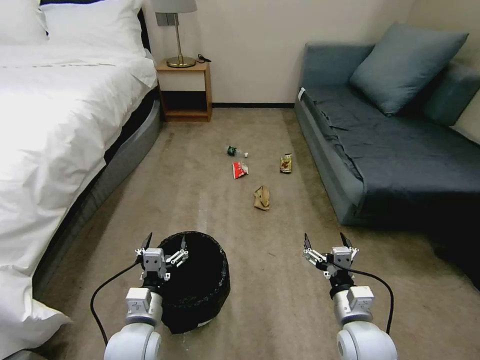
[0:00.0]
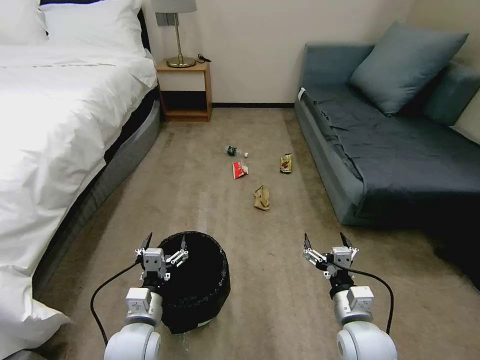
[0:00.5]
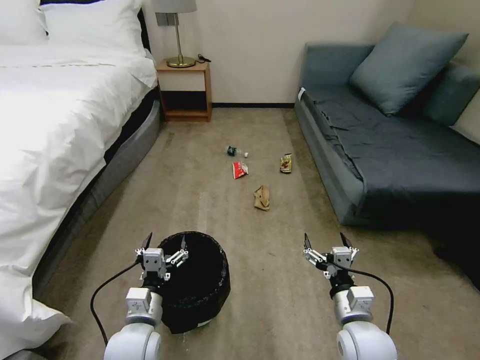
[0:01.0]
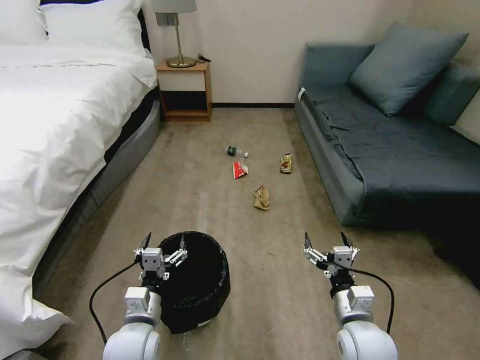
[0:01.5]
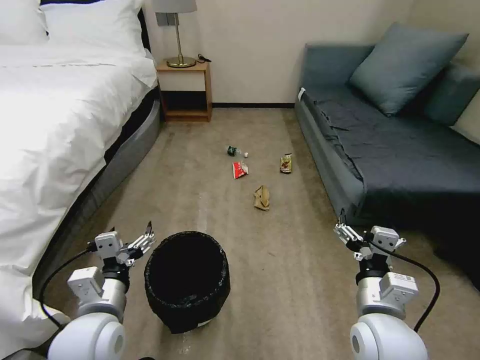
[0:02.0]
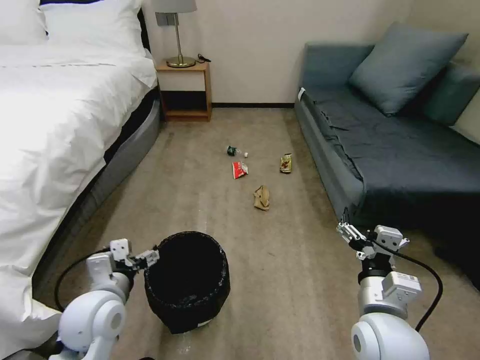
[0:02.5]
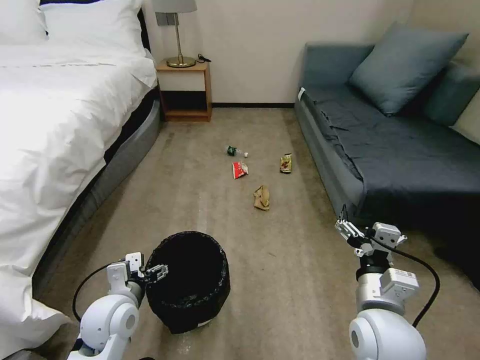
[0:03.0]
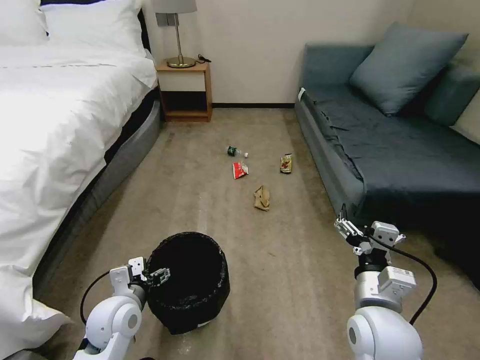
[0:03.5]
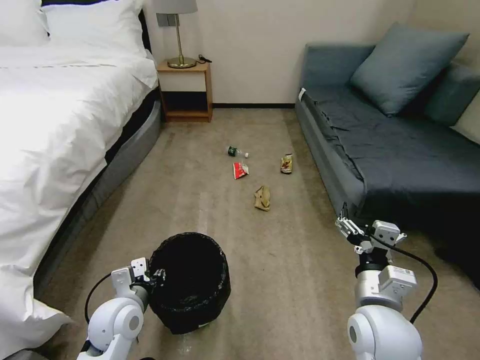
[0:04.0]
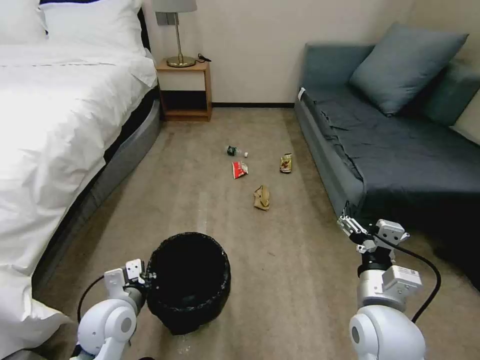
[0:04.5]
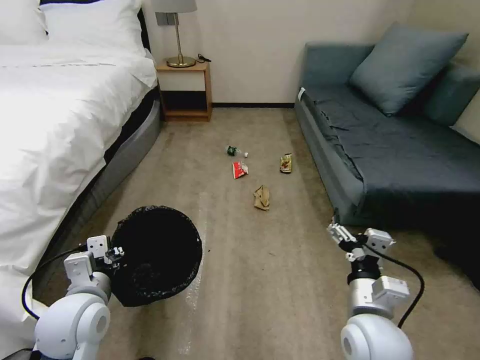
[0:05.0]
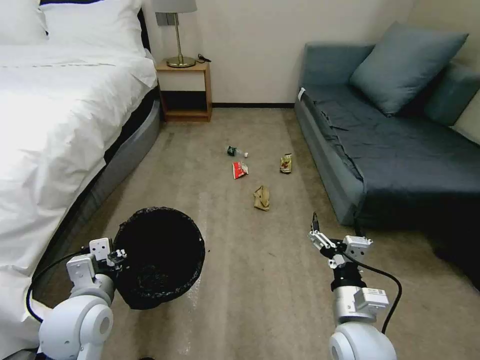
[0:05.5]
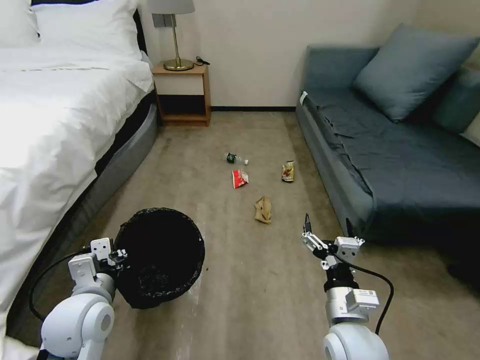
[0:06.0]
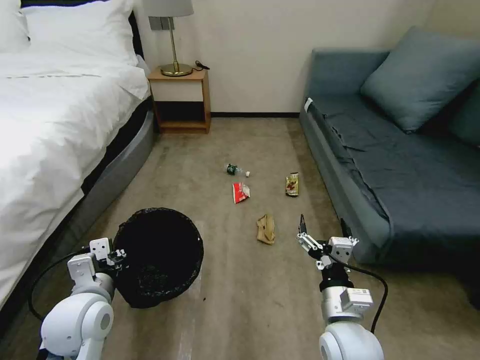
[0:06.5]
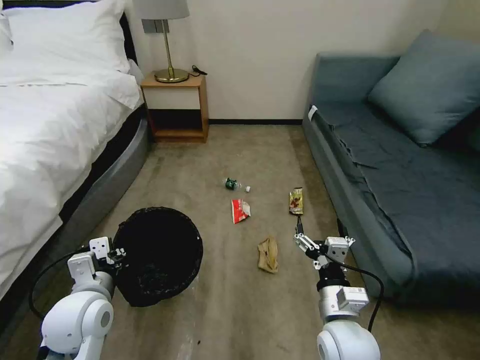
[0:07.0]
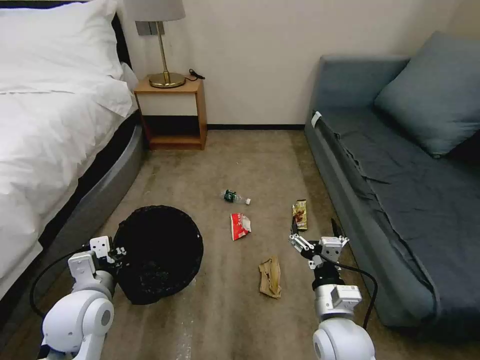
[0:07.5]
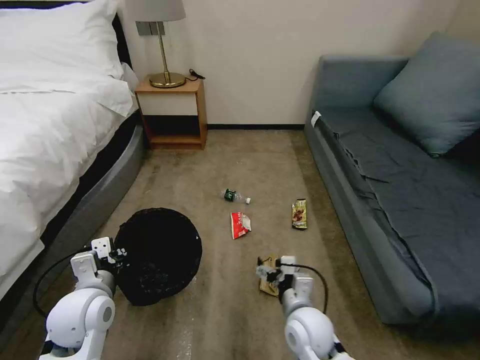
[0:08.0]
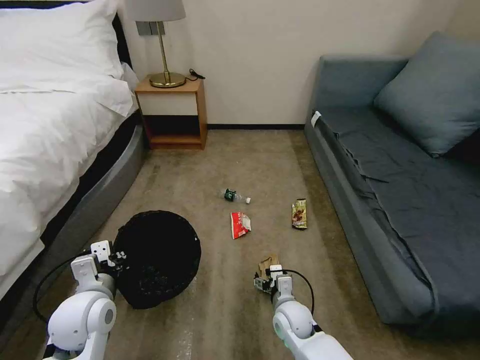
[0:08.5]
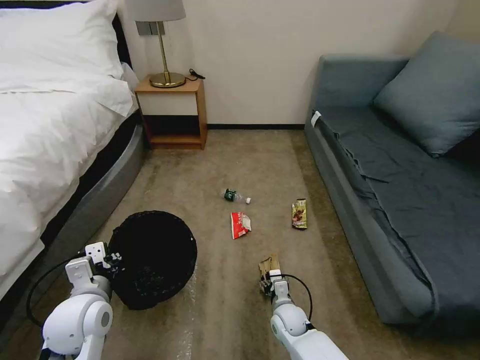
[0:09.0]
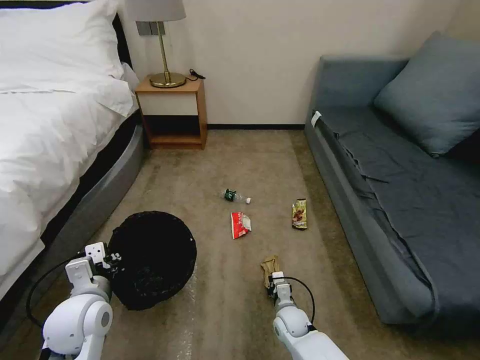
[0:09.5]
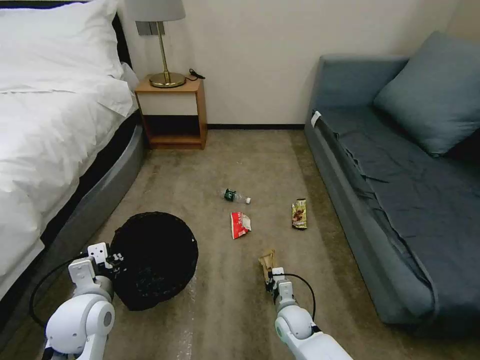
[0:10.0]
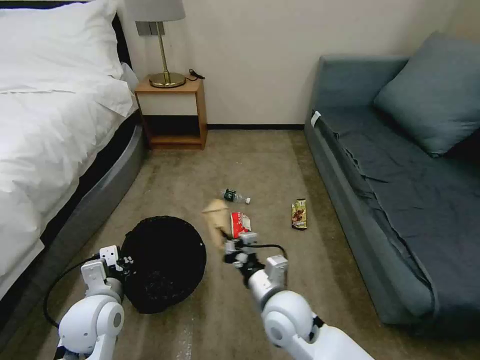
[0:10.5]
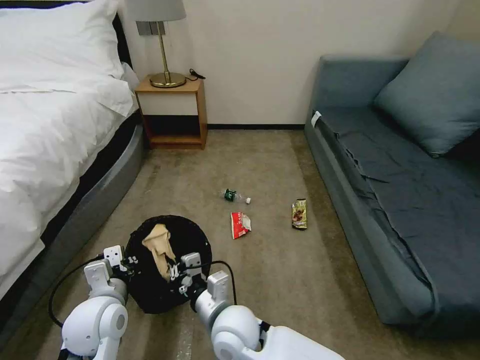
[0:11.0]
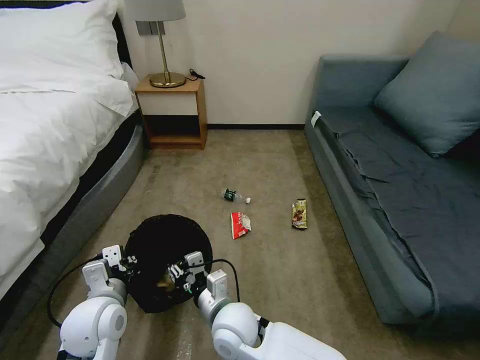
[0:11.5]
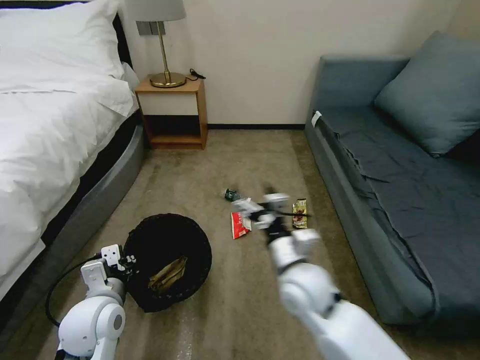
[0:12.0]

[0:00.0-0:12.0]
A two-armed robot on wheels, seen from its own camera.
Task of the whole recording: Pick up the trash bin, then pick up the garbage on the floor and place it into the trash bin.
0:02.0 to 0:04.0: The left gripper travels downward and forward by about 10 cm, and closes its fingers.
0:04.0 to 0:06.0: The right gripper shifts roughly 5 cm downward, while the left gripper goes roughly 10 cm upward.
0:06.0 to 0:08.0: The right gripper is displaced downward and to the left by about 10 cm.
0:08.0 to 0:10.0: The right gripper travels downward by about 15 cm, and closes its fingers.
0:10.0 to 0:12.0: The right gripper moves upward, some 25 cm, and opens up.

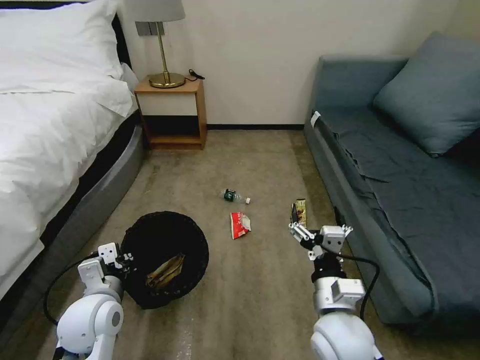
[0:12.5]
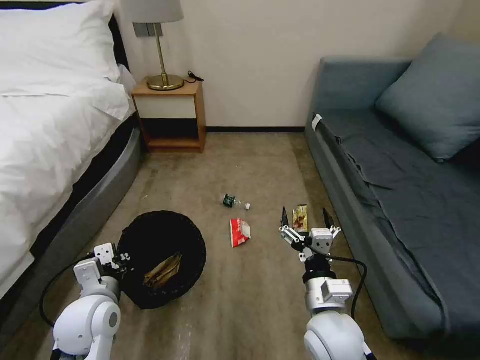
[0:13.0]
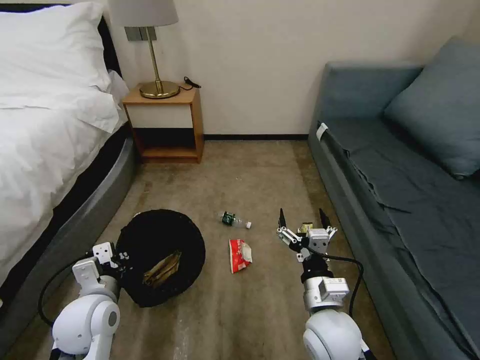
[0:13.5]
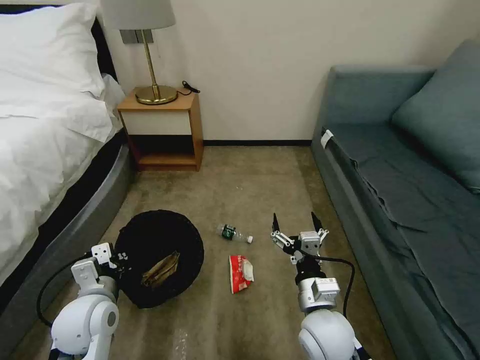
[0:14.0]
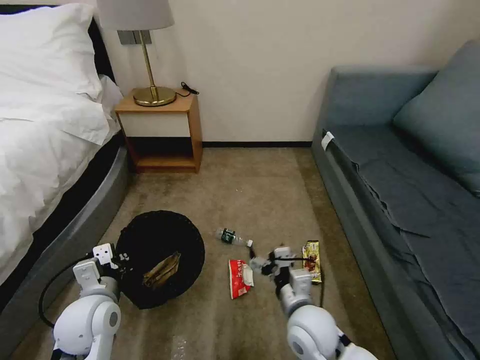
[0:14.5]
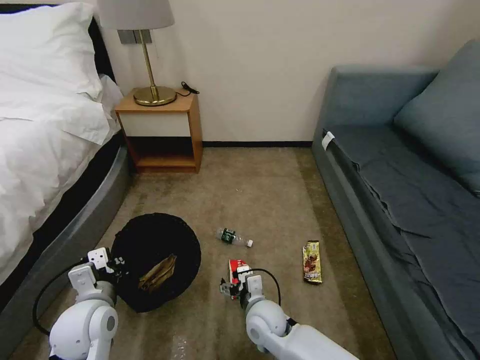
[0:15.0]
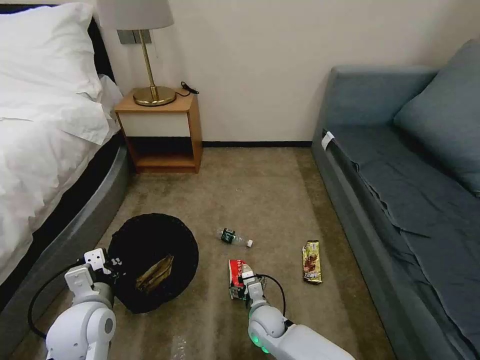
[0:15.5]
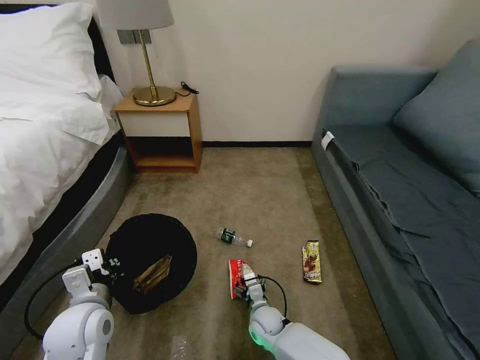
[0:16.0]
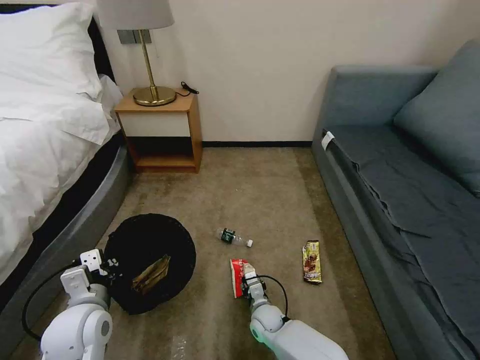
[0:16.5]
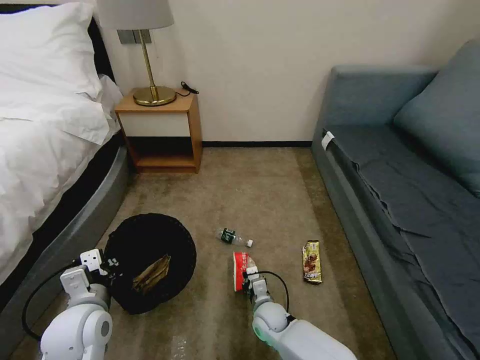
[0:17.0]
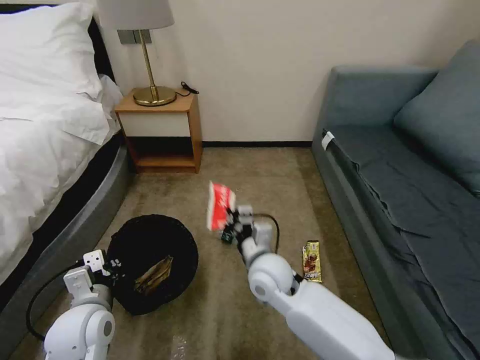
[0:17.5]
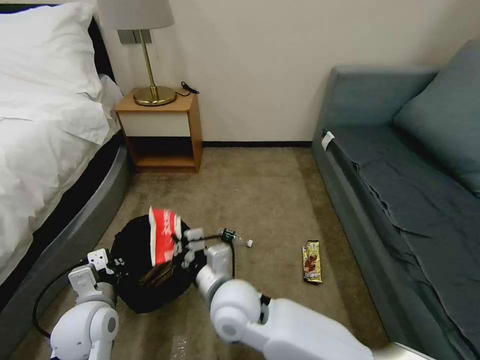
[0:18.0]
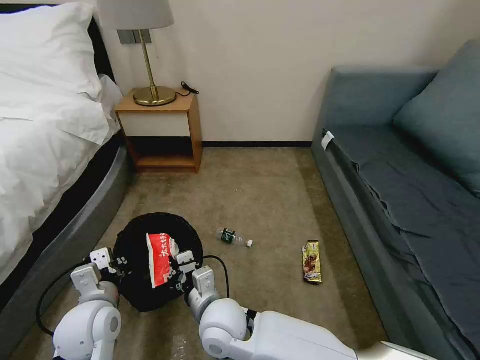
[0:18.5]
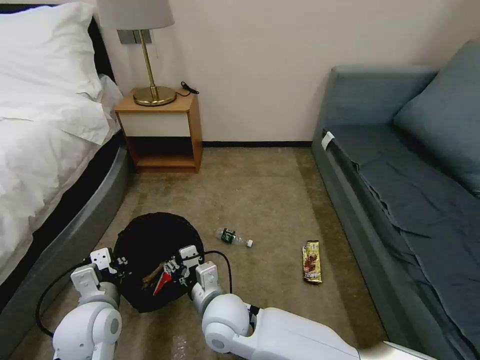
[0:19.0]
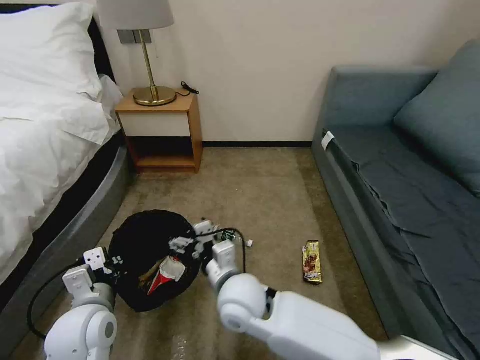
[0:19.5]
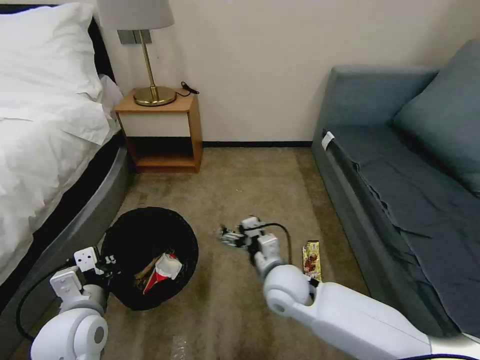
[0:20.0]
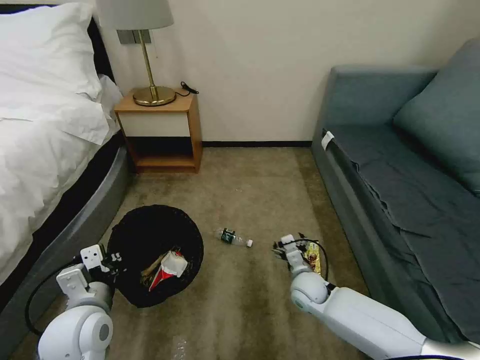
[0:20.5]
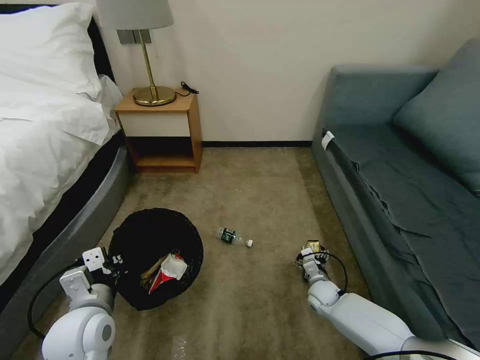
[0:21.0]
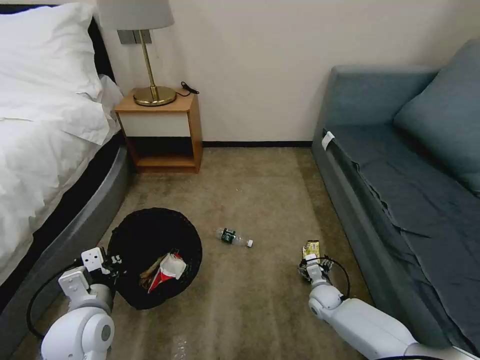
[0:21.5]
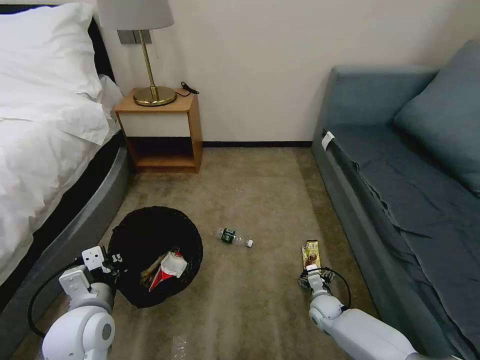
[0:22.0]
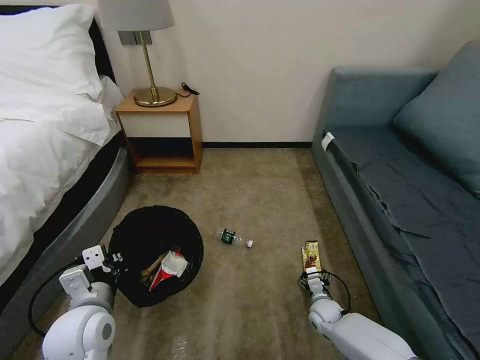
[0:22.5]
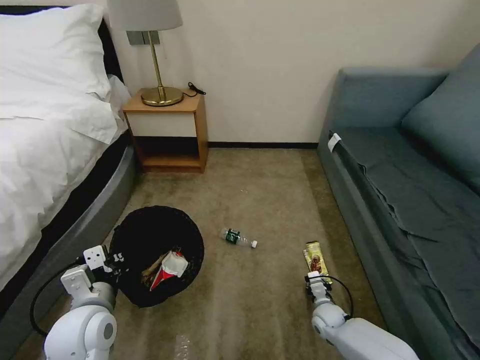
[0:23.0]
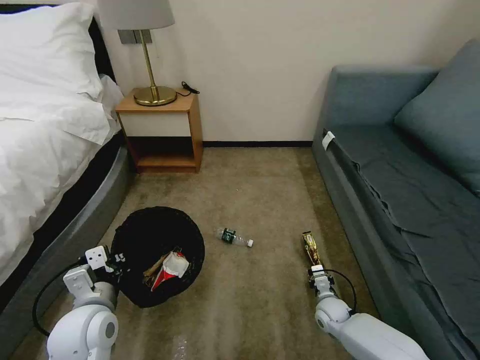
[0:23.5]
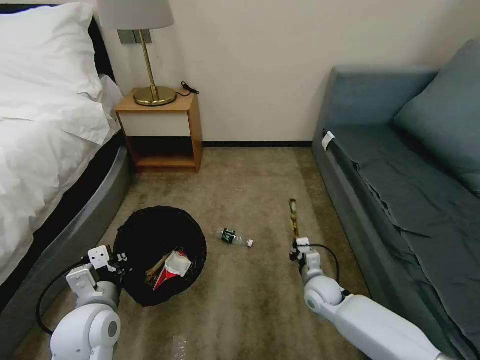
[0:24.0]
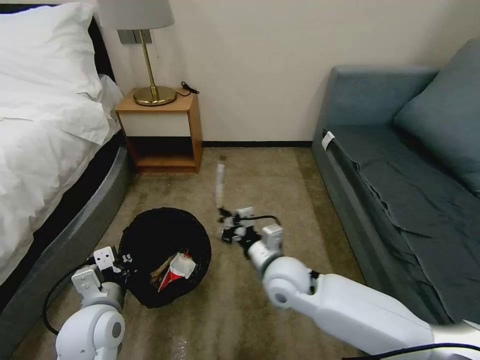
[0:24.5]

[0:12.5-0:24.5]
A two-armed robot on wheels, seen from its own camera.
Task of the whole recording: Pick up the trash bin, then pick up the garbage on the floor and place it into the trash bin.
0:12.5 to 0:14.5: The right gripper travels downward by roughly 5 cm.
0:14.5 to 0:16.5: The right gripper shifts some 20 cm downward, and closes up.
0:16.5 to 0:18.5: The right gripper goes some 25 cm upward and to the left, and closes up.
0:18.5 to 0:20.5: The right gripper goes roughly 30 cm to the right, downward and forward, and opens its fingers.
0:20.5 to 0:22.5: The right gripper shifts some 15 cm downward and to the right.
0:22.5 to 0:24.5: The right gripper heads upward and to the left, covering some 35 cm, and closes.

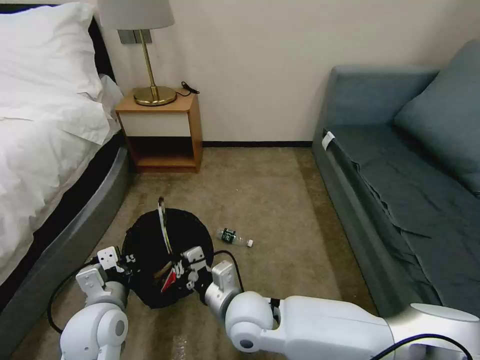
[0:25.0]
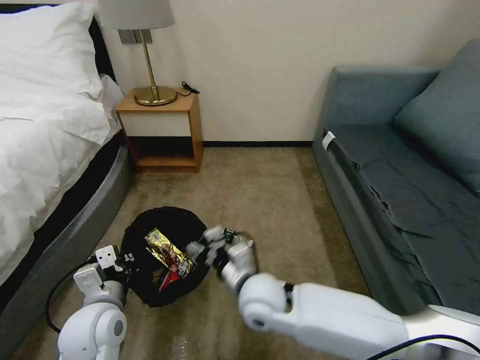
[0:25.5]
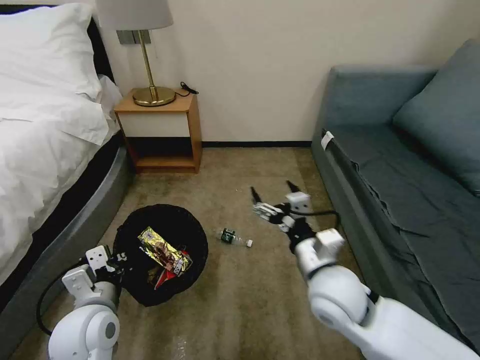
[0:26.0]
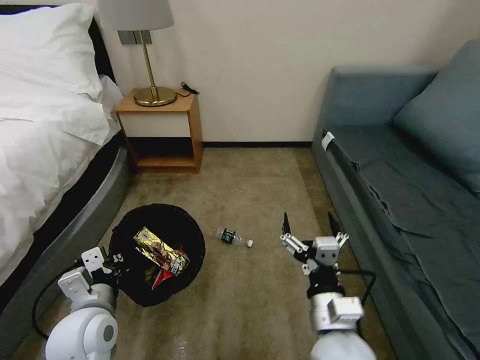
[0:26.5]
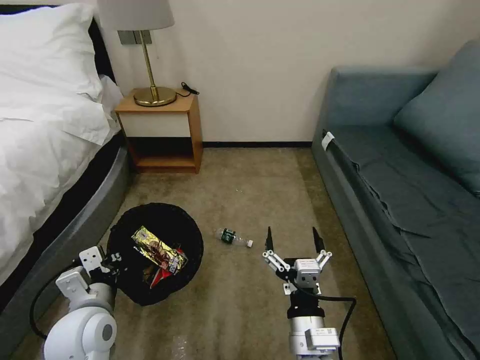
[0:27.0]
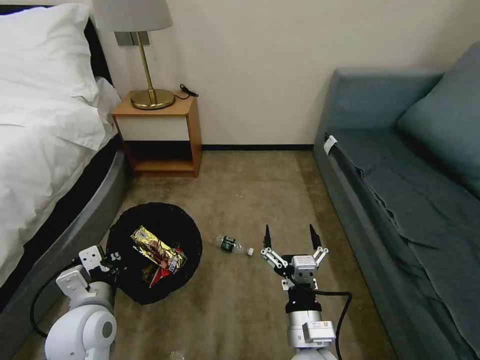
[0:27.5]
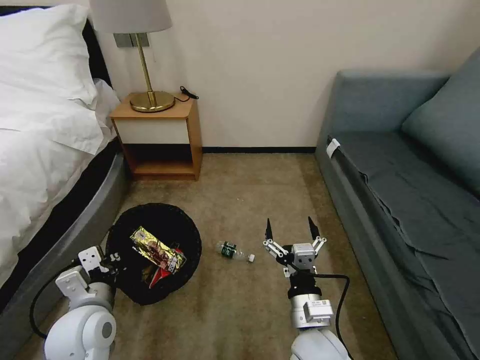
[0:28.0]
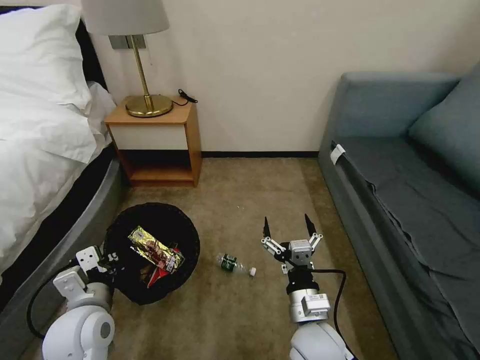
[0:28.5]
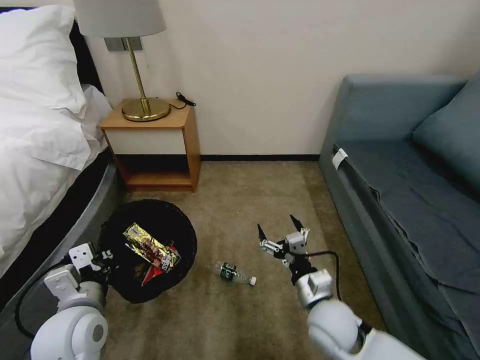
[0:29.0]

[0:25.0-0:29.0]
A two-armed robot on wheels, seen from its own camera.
Task of the whole recording: Pick up the trash bin, then pick up the garbage on the floor and place it into the trash bin.
0:25.0 to 0:27.0: The right gripper is displaced backward and to the right by roughly 15 cm, and opens up.
0:27.0 to 0:29.0: The right gripper travels forward and to the right by about 15 cm.
